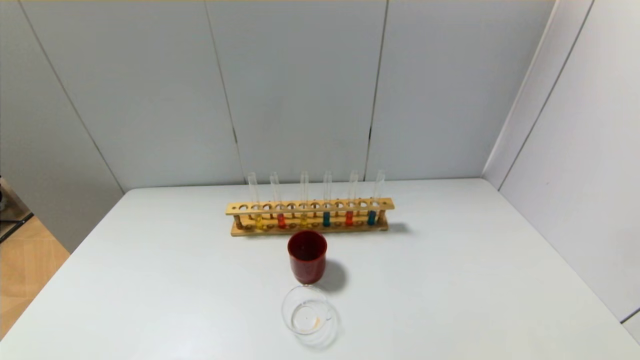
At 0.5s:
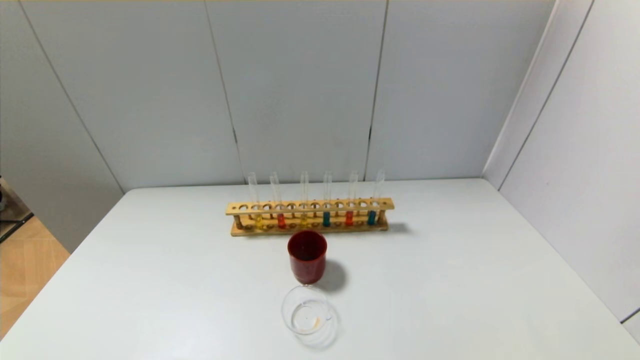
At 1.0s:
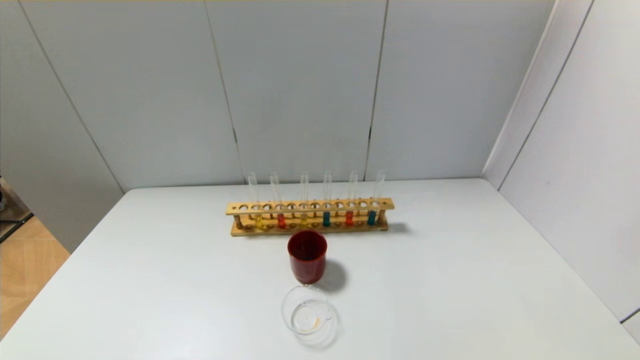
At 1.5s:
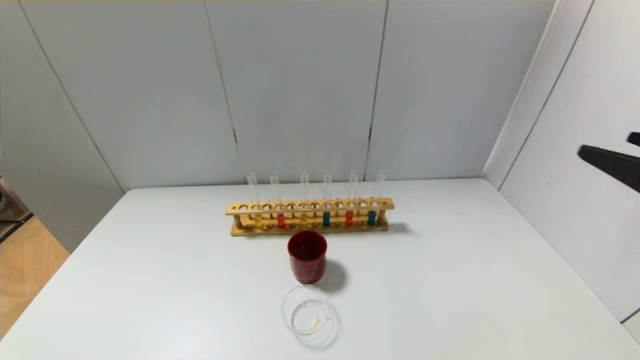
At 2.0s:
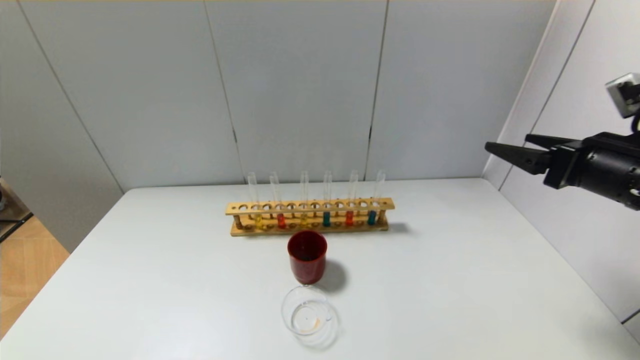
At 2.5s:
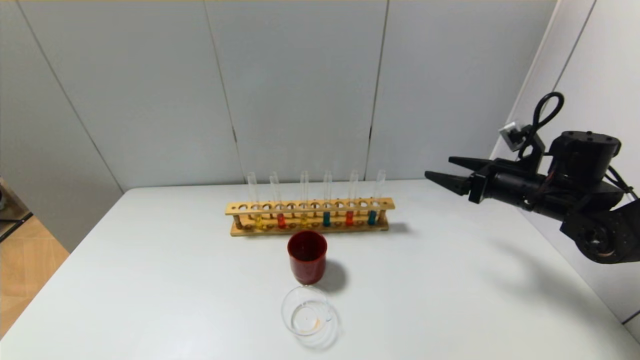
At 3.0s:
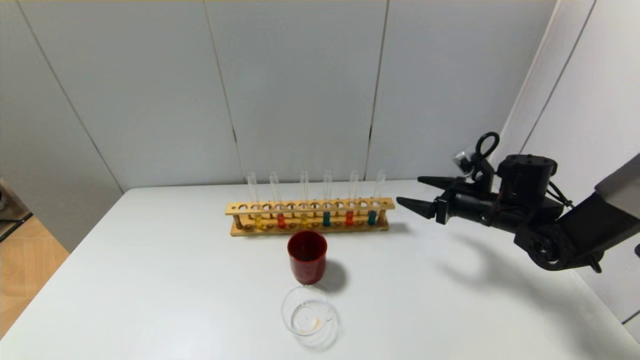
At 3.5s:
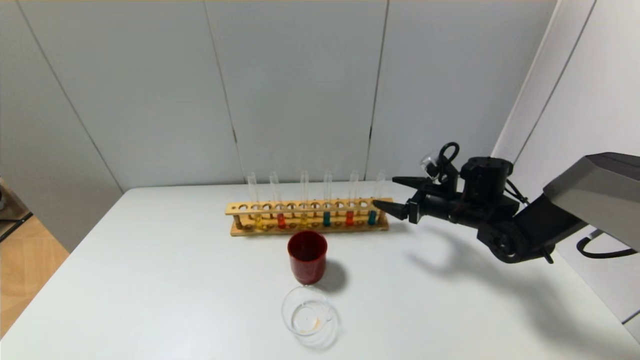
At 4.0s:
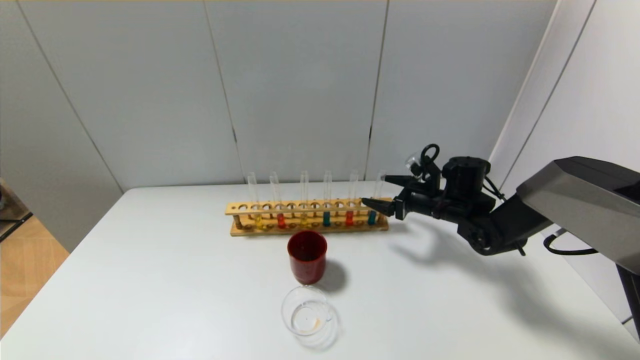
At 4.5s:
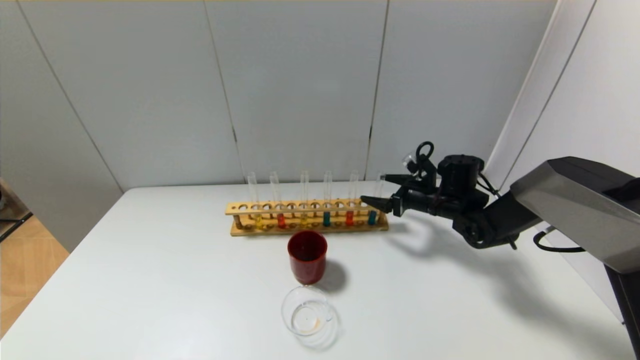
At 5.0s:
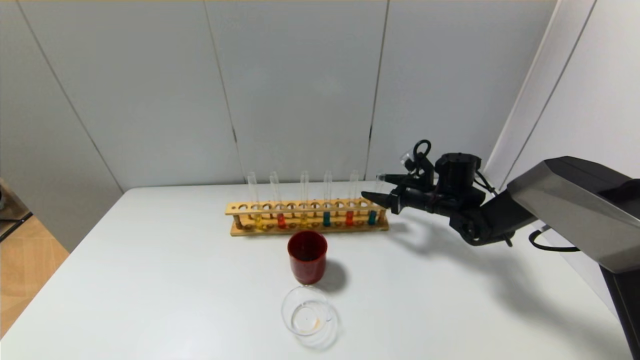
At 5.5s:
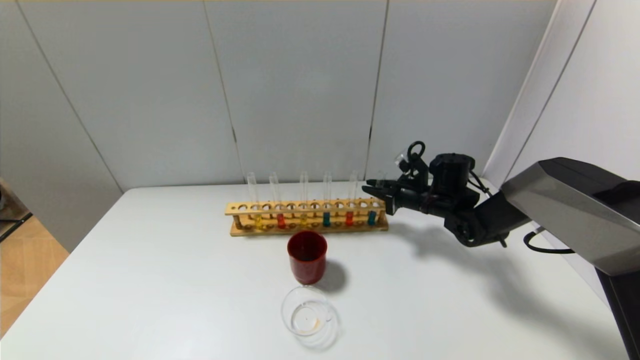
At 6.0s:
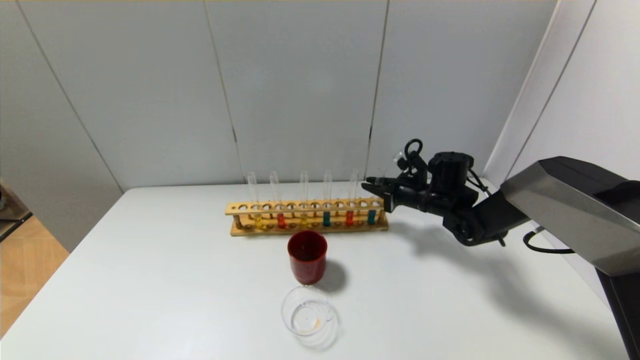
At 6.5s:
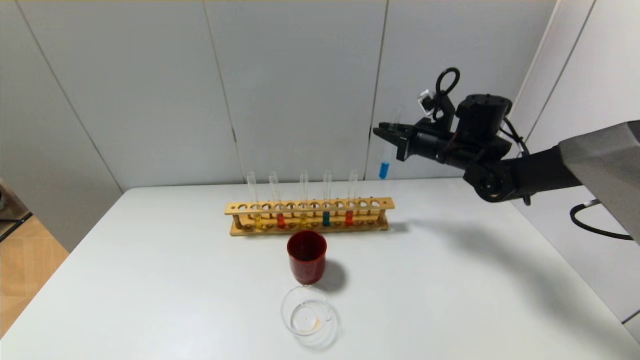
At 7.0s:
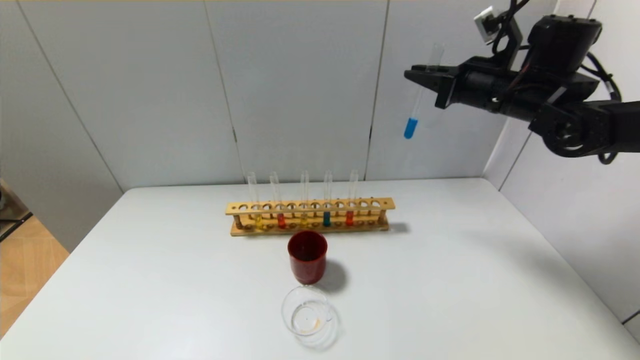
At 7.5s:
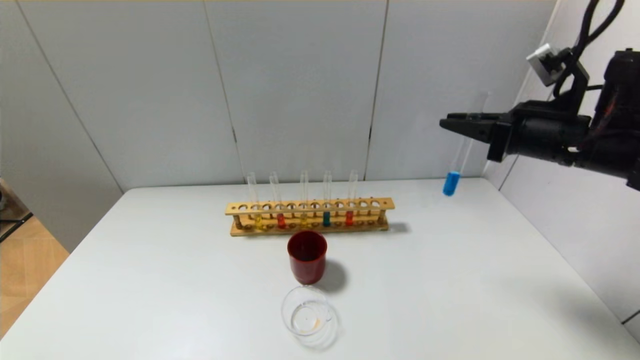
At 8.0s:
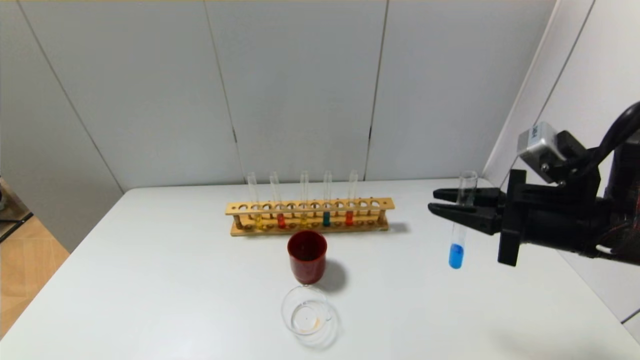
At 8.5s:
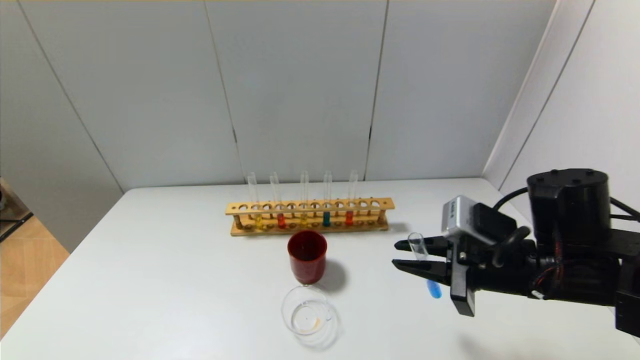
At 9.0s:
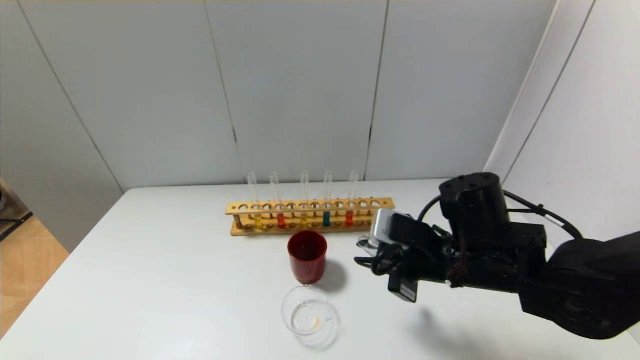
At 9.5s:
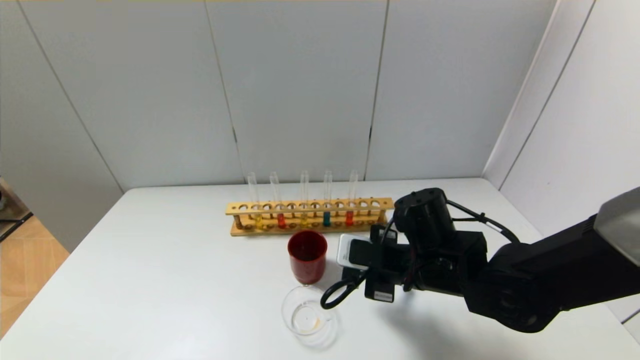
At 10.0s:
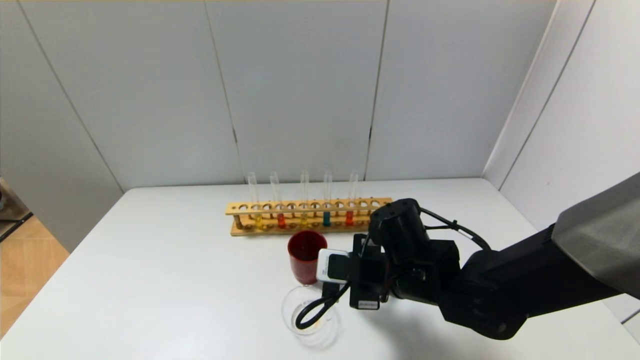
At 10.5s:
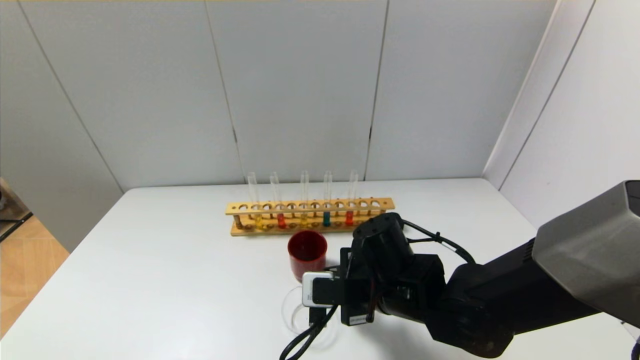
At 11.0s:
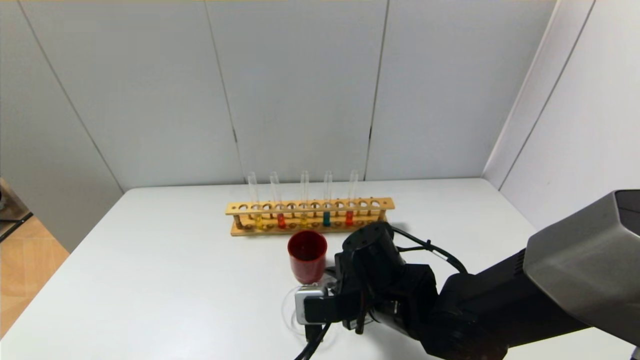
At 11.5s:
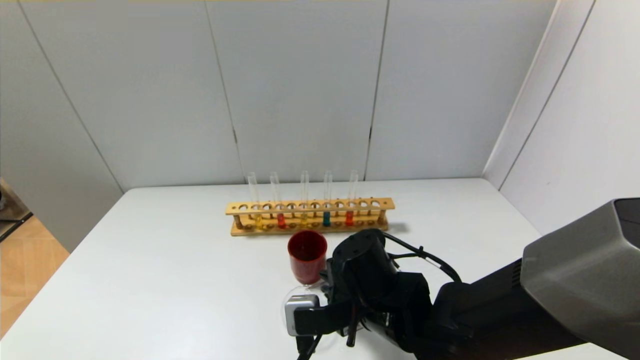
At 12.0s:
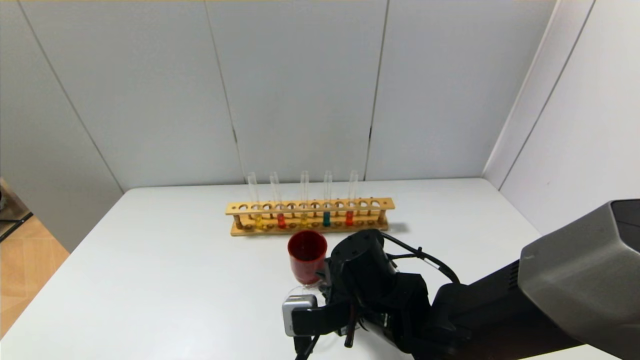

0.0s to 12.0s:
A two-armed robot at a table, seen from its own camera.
0.0s to 2.0s: The right gripper goes some 30 cm forward and upward.
2.0s to 4.0s: The right gripper heads forward, downward and to the left, covering about 25 cm.
4.0s to 6.0s: The right gripper closes up.
6.0s to 8.0s: The right gripper goes approximately 25 cm backward and upward.
8.0s to 10.0s: The right gripper moves to the left and downward, approximately 20 cm.
10.0s to 12.0s: The right gripper changes place by about 5 cm.

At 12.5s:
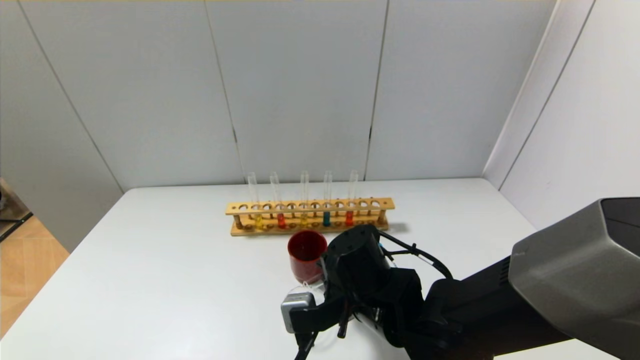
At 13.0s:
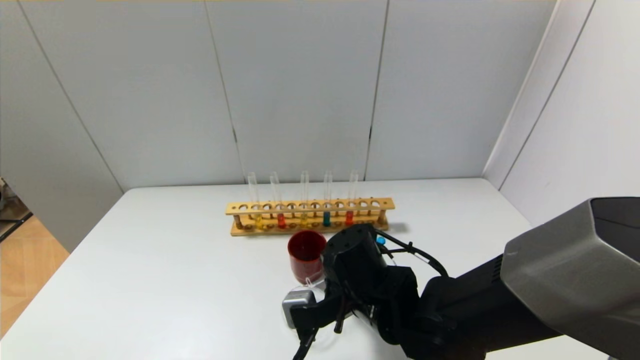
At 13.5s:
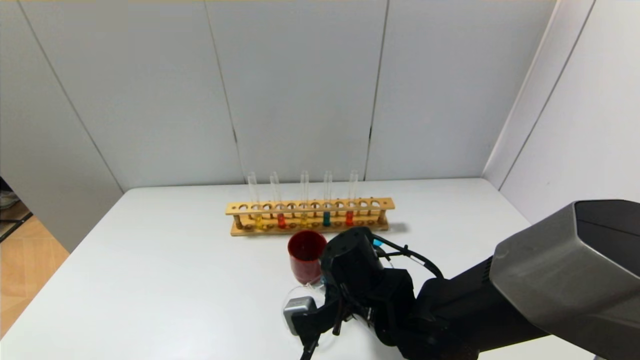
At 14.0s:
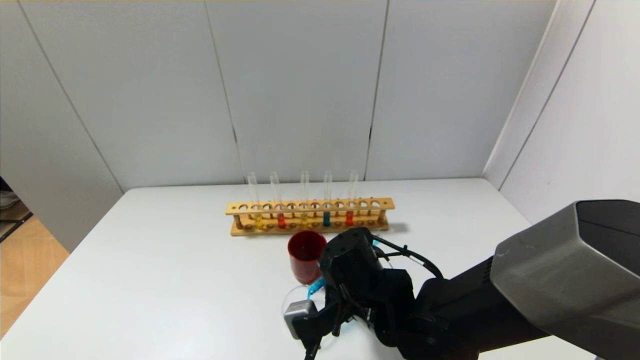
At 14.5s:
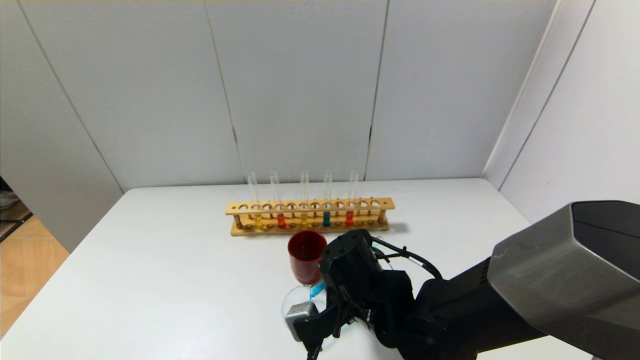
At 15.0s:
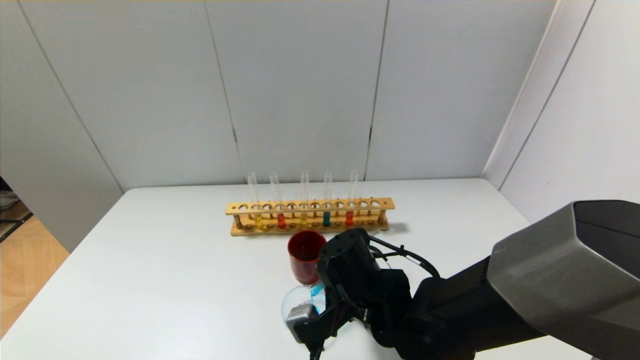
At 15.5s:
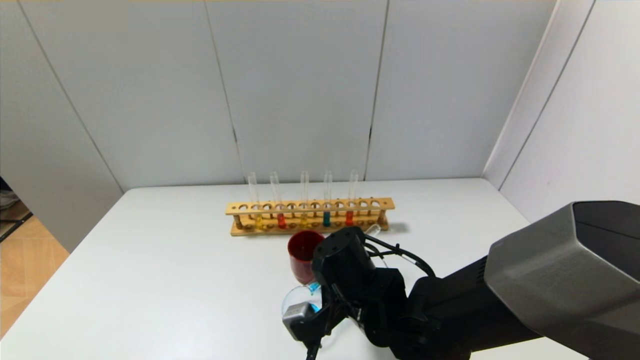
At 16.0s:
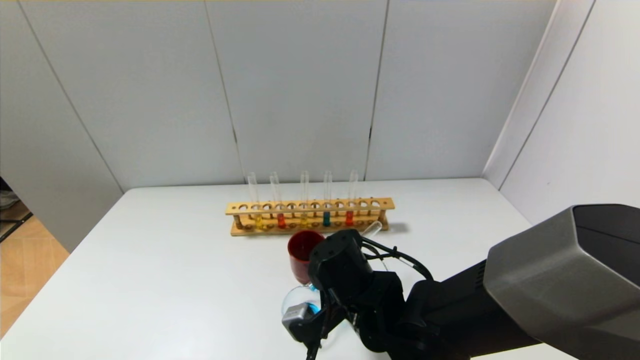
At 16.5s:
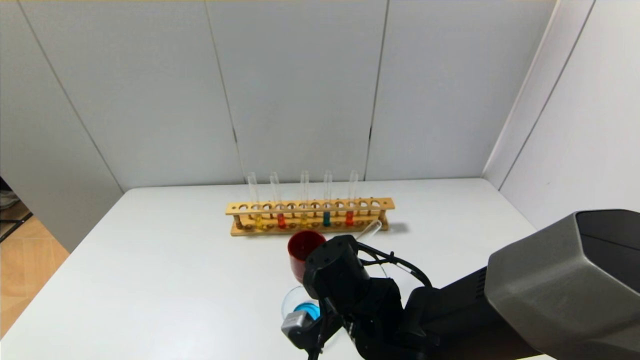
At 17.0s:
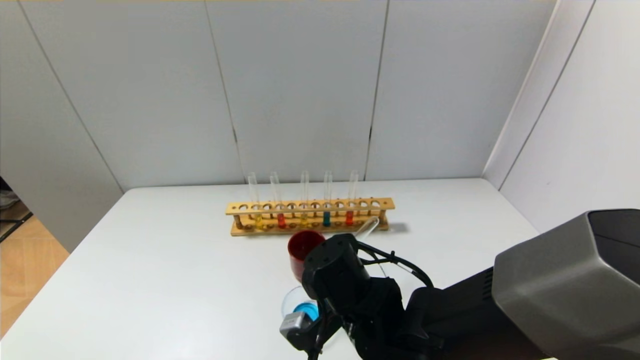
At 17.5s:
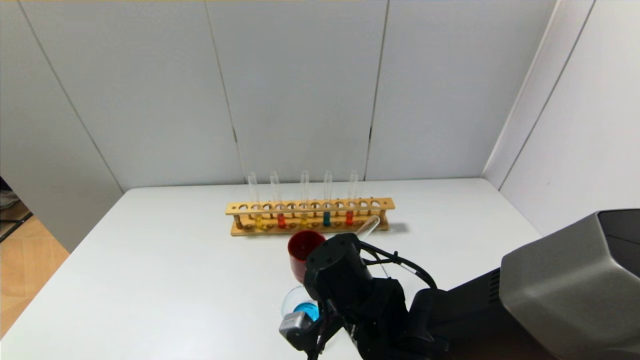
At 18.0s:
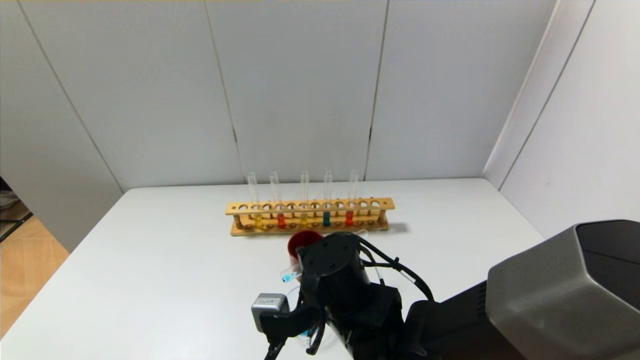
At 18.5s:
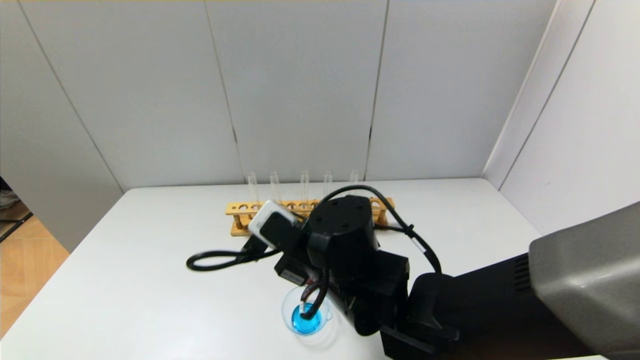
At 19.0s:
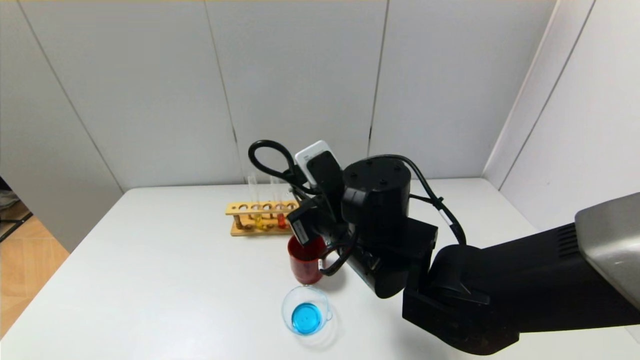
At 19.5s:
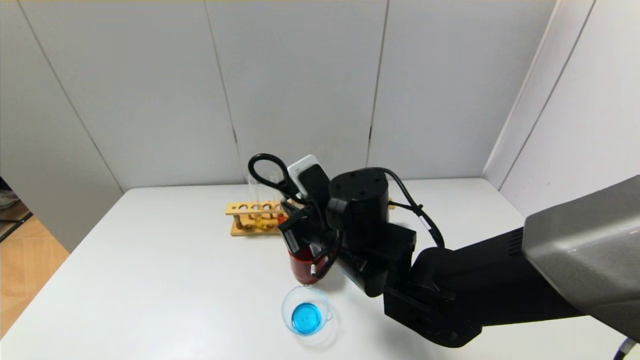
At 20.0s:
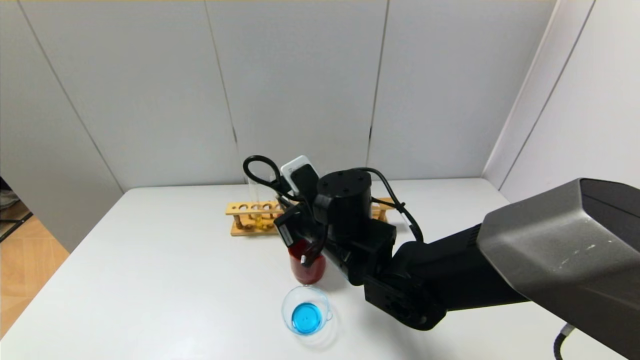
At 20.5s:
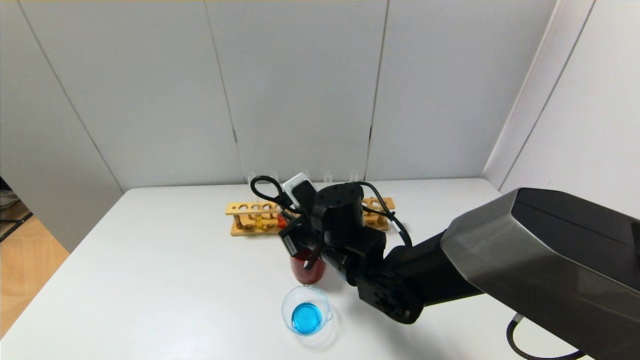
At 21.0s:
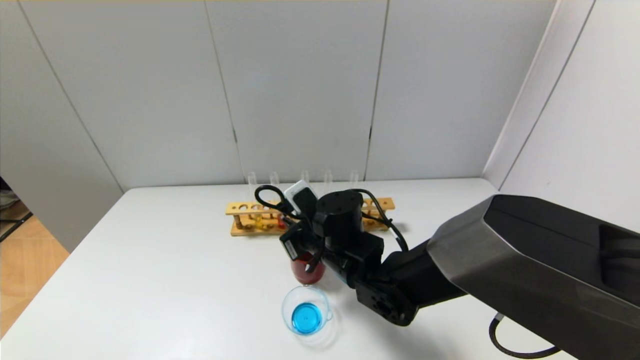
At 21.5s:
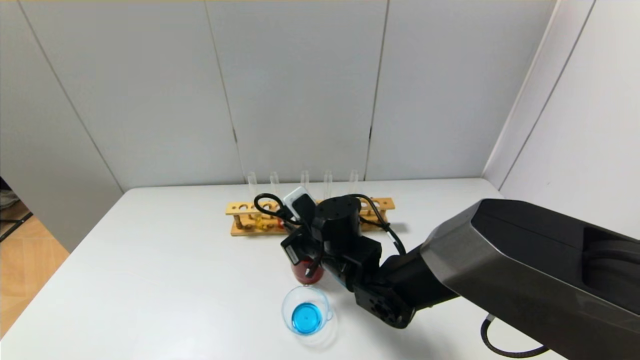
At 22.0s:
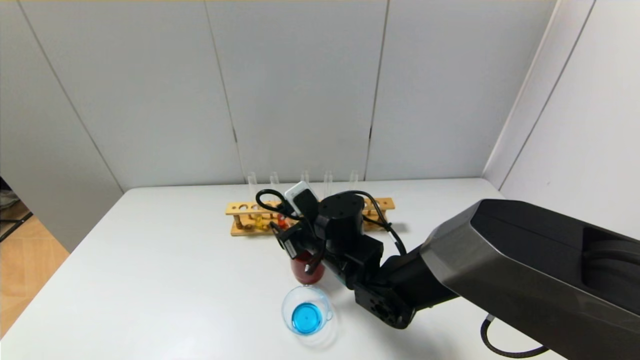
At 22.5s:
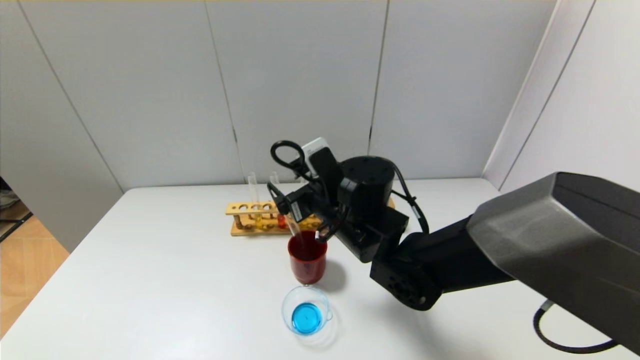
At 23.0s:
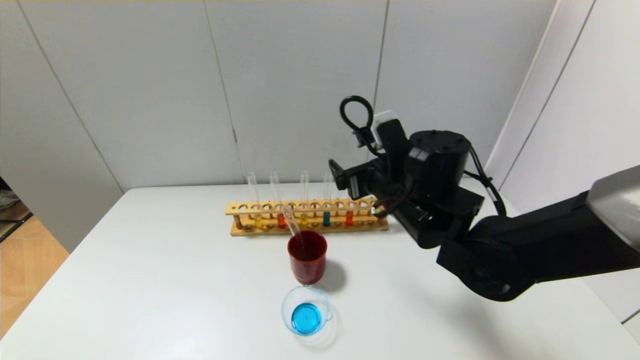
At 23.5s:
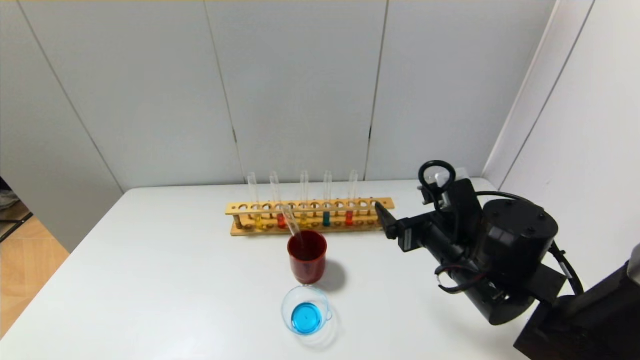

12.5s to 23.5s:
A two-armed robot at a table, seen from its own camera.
Step, 18.0s to 22.0s: Place the test tube into the brown cup with the right gripper.
12.5s to 14.5s: The grippers move only a little.
14.5s to 16.0s: The grippers move only a little.
18.0s to 20.0s: The right gripper heads forward and upward, covering roughly 10 cm.
20.0s to 21.5s: The right gripper heads downward, covering roughly 5 cm.
21.5s to 23.5s: The right gripper is displaced to the right and backward by roughly 15 cm, and opens up.
